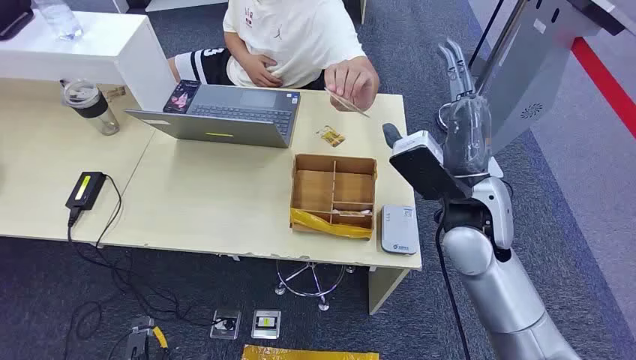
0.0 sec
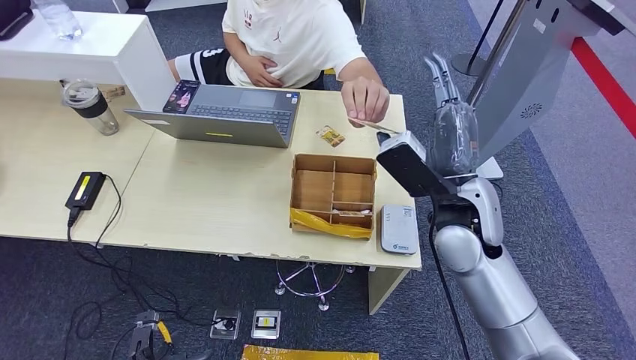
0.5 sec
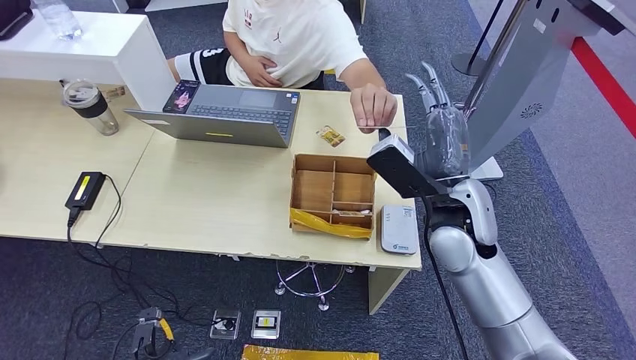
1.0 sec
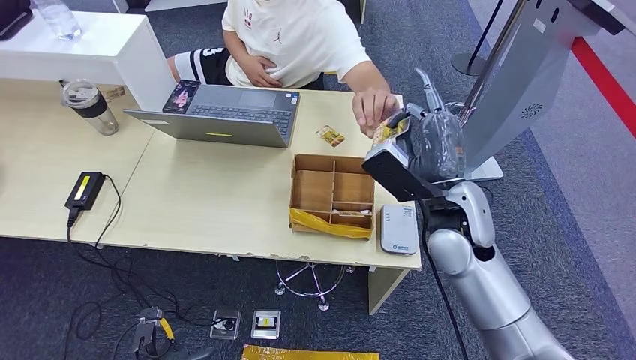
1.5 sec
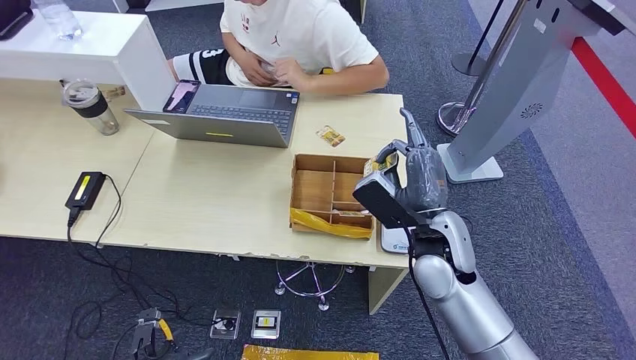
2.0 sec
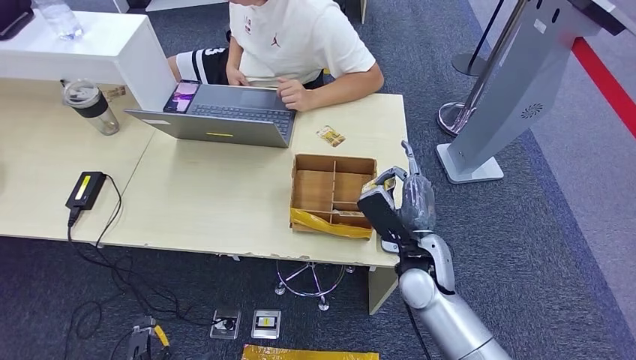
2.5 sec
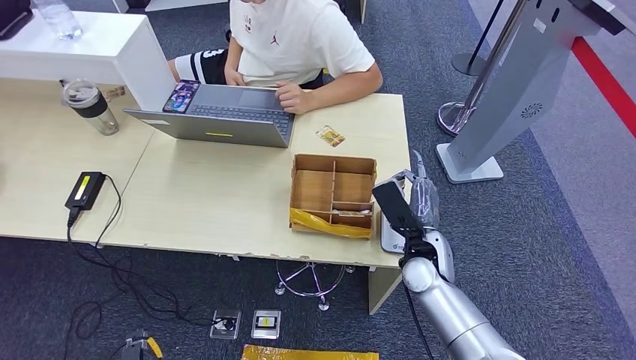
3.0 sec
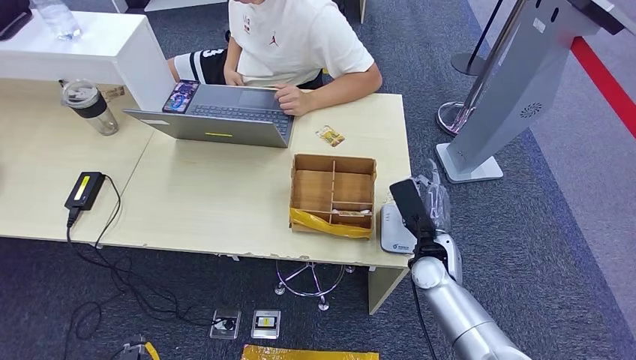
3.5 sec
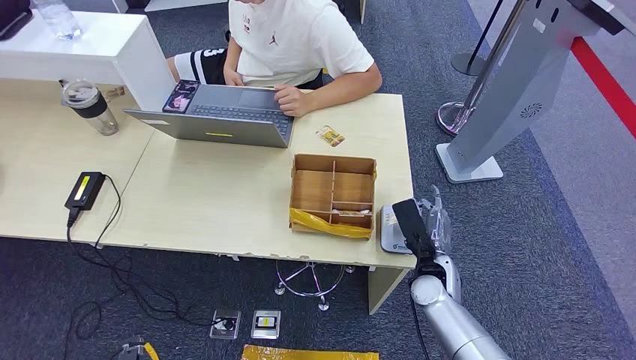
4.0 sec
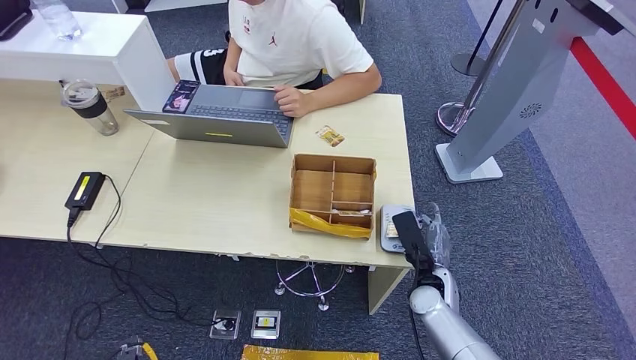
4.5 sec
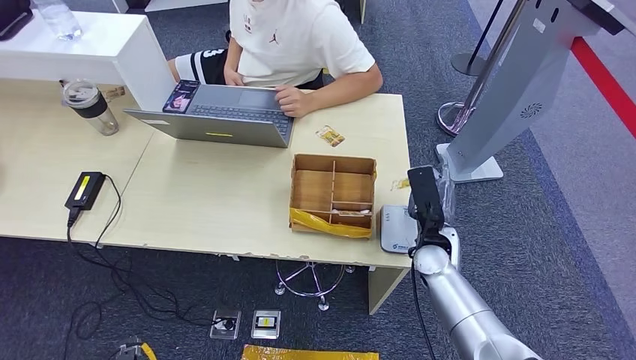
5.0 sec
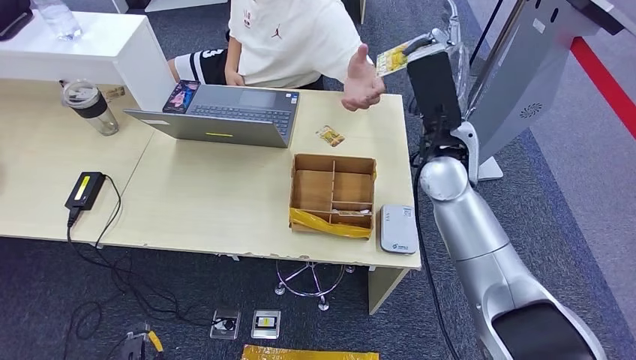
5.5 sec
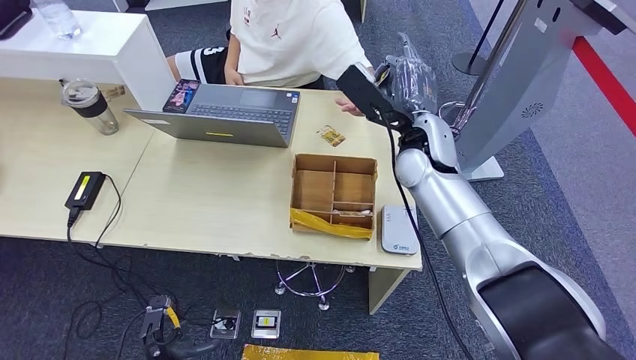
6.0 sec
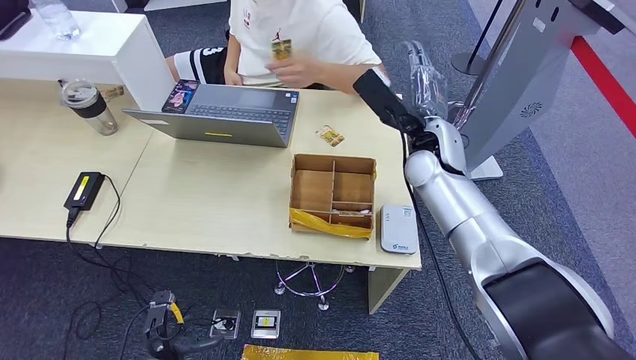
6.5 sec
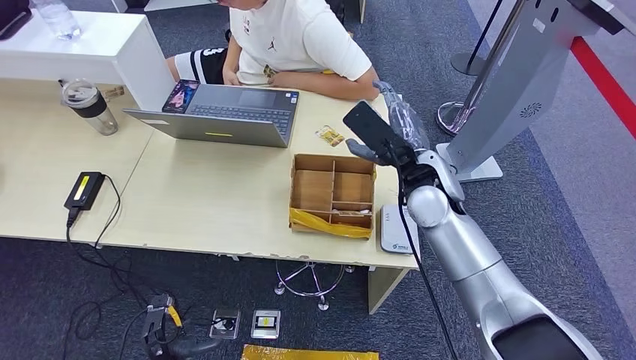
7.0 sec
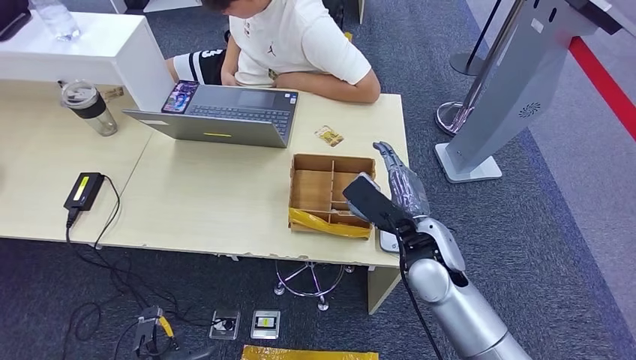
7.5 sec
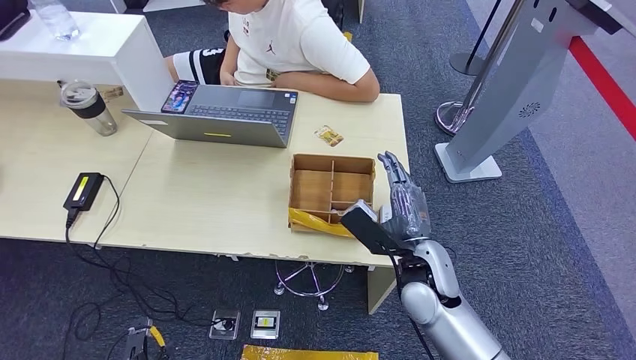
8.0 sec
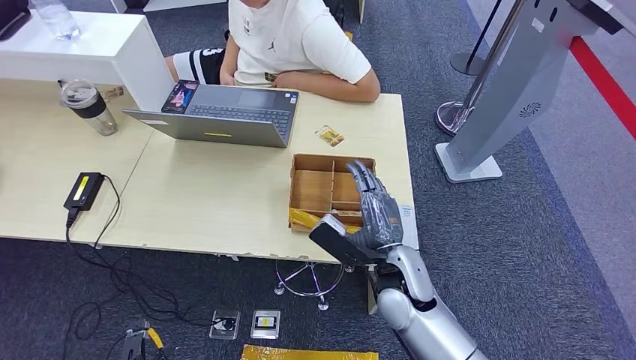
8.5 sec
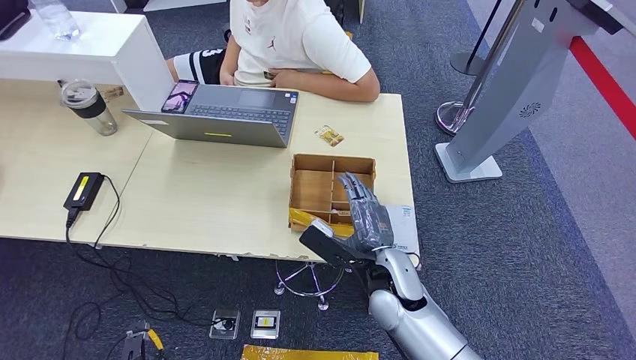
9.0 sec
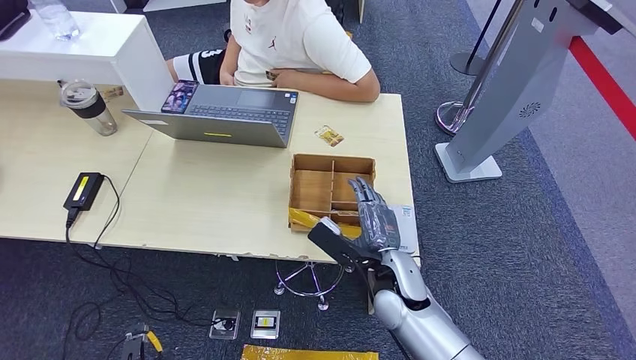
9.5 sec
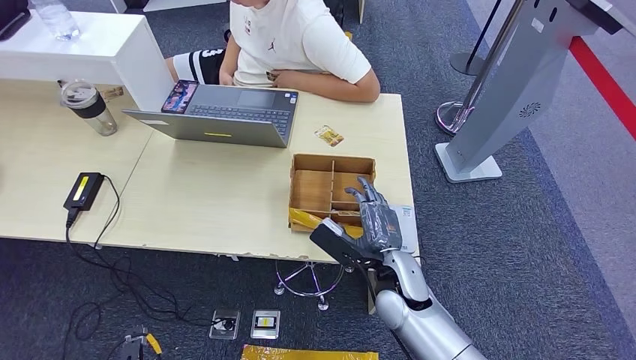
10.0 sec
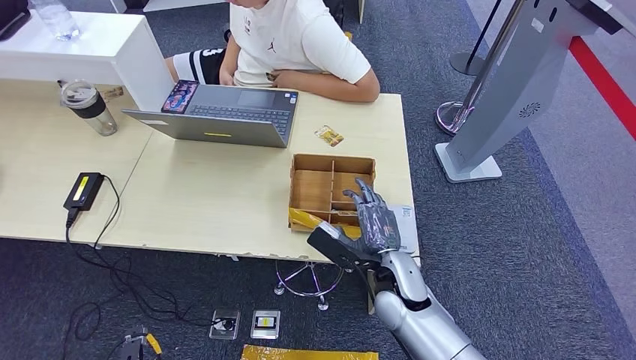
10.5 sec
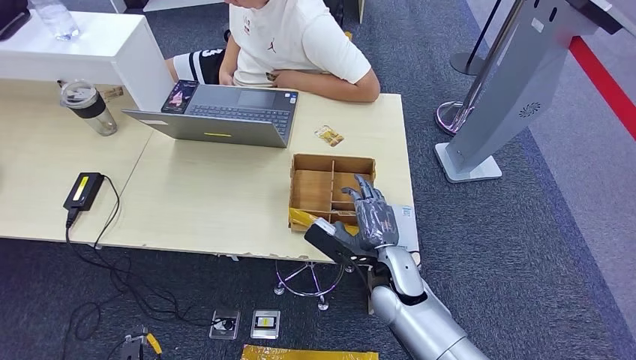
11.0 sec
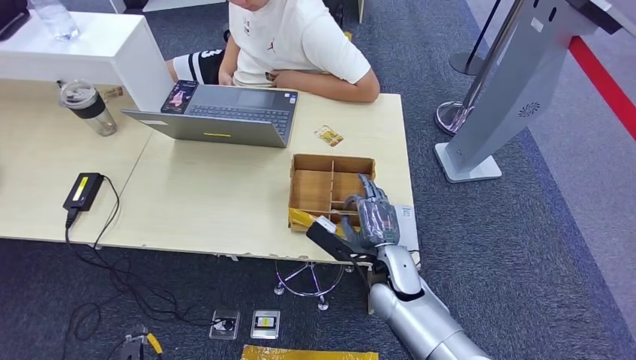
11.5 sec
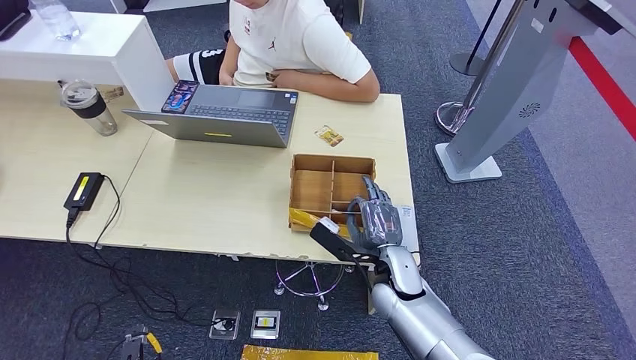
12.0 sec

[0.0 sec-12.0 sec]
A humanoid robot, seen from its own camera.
Step, 0.0 sec to 2.5 sec: Take the ID card from the person's hand.
Step, 3.5 sec to 5.0 sec: Place the ID card on the card reader.
Step, 5.5 sec to 8.5 sec: Hand the ID card to the person.
2.0 sec to 4.0 sec: The right hand travels downward by about 15 cm.
4.0 sec to 6.0 sec: The left hand travels forward by some 5 cm, while the right hand moves upward and forward, roughly 25 cm.
8.0 sec to 10.0 sec: The right hand changes place by roughly 5 cm.
10.0 sec to 12.0 sec: The hands move only a little.

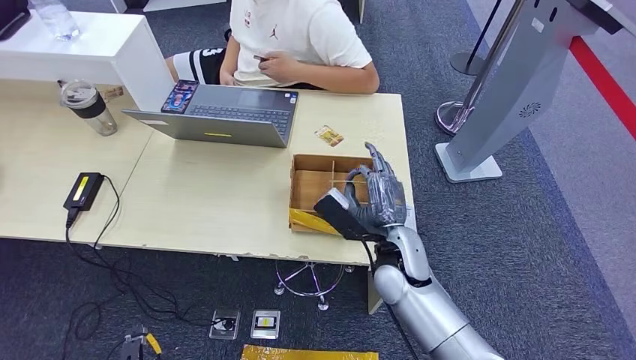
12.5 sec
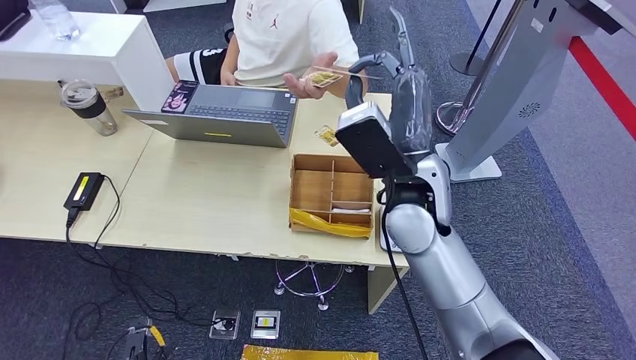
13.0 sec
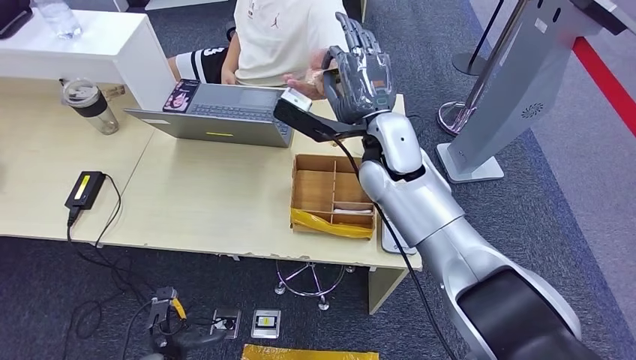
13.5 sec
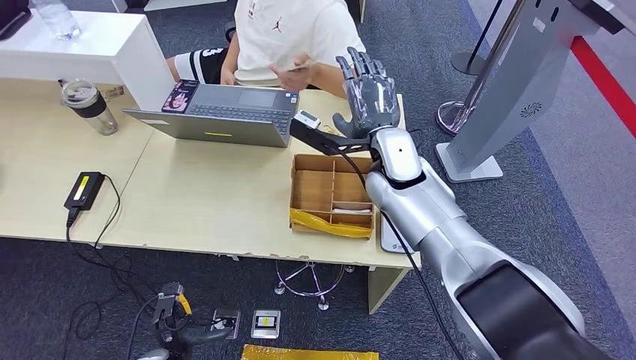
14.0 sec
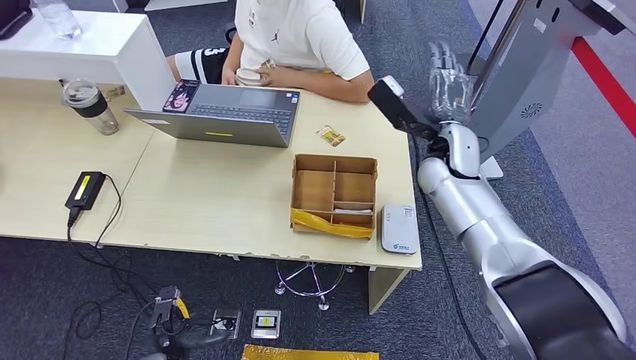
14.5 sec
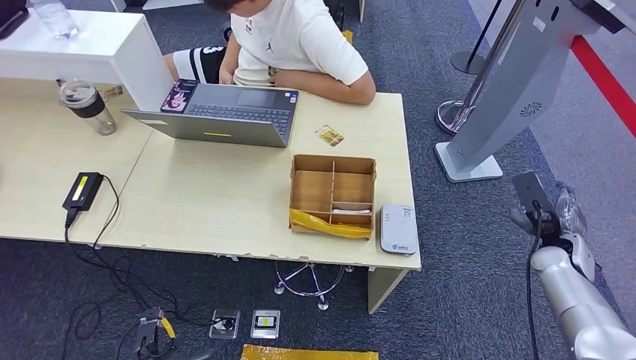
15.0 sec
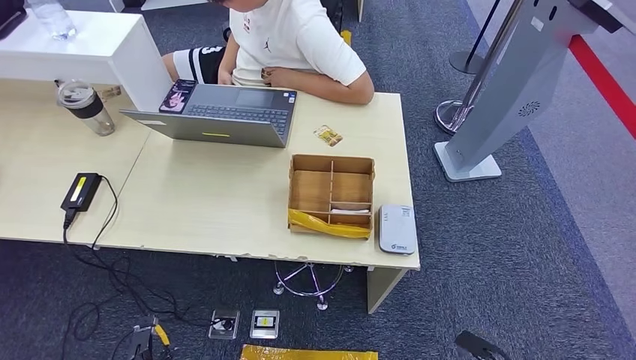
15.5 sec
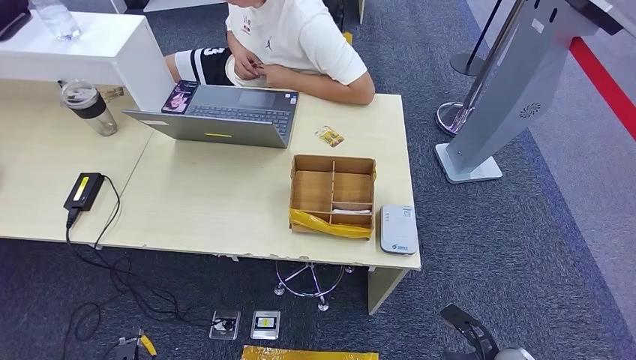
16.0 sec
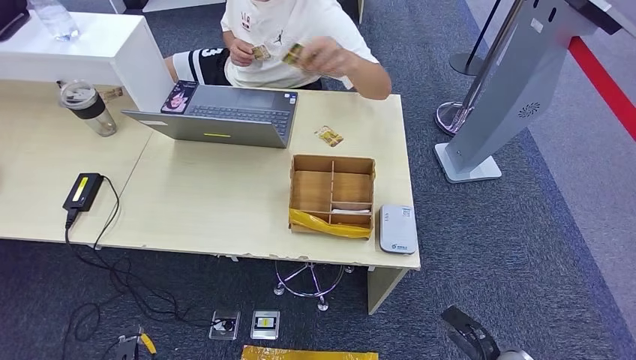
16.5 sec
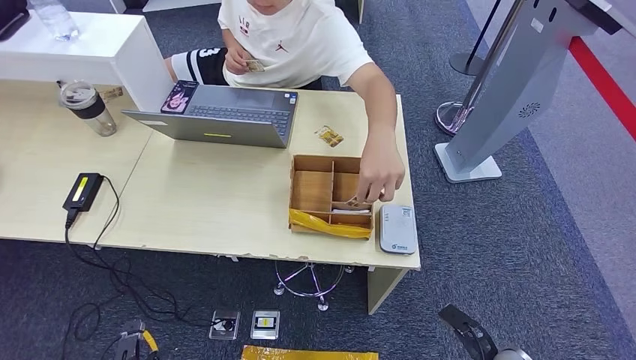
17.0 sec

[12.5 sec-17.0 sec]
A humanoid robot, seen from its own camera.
Step, 13.5 sec to 17.0 sec: Hand the room key to the person.

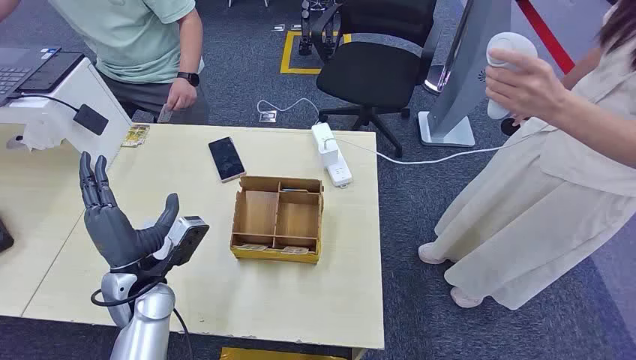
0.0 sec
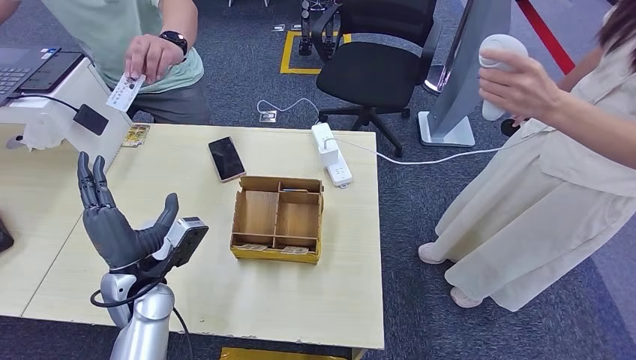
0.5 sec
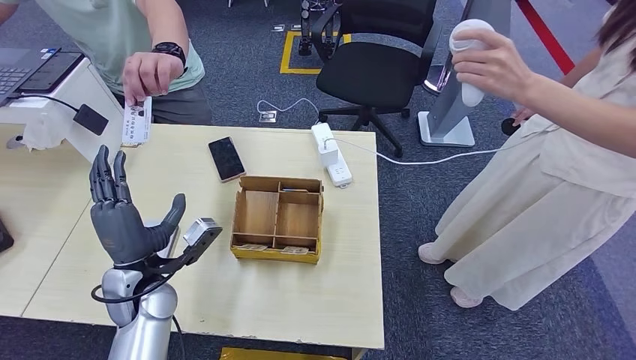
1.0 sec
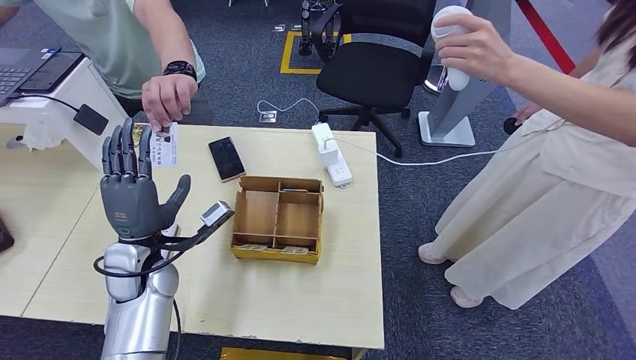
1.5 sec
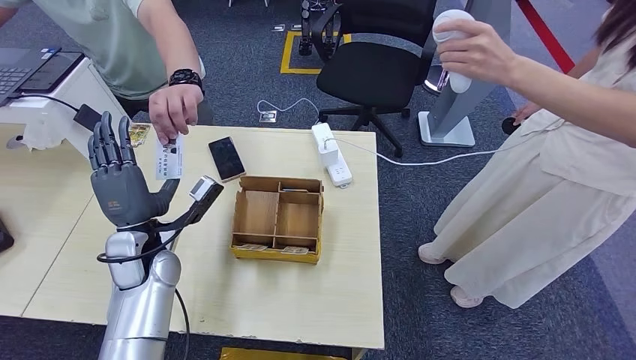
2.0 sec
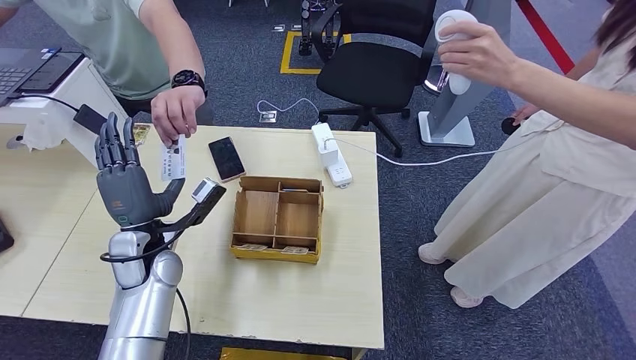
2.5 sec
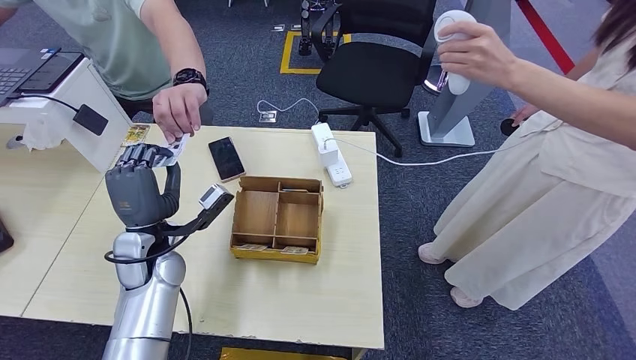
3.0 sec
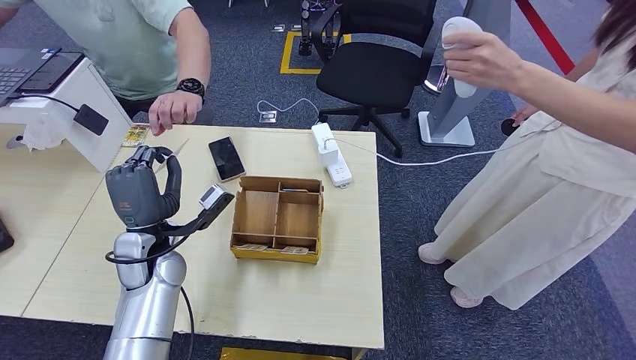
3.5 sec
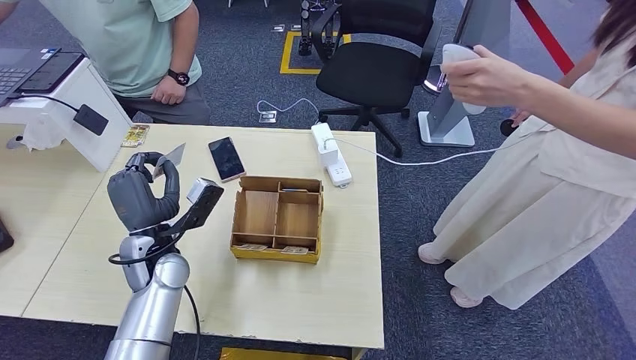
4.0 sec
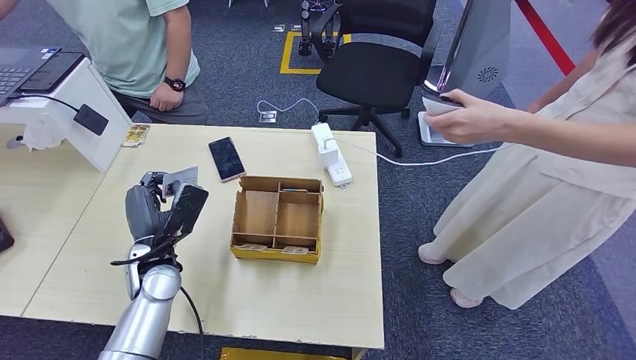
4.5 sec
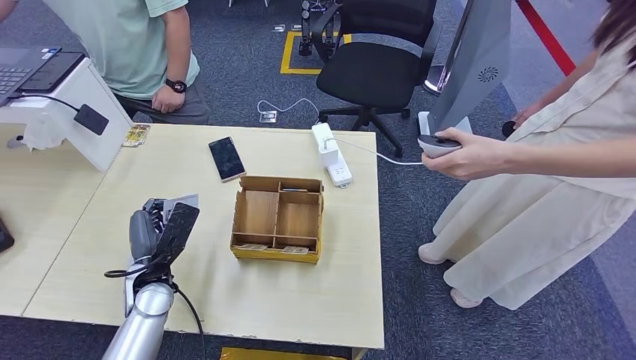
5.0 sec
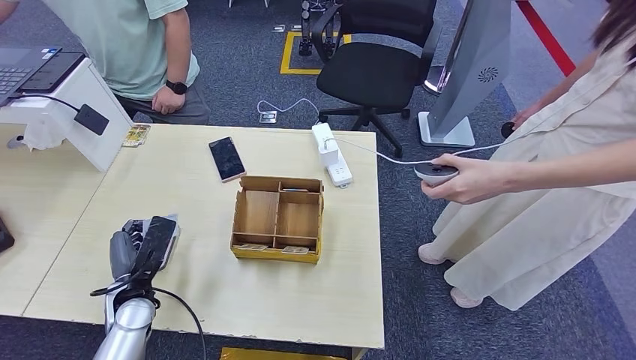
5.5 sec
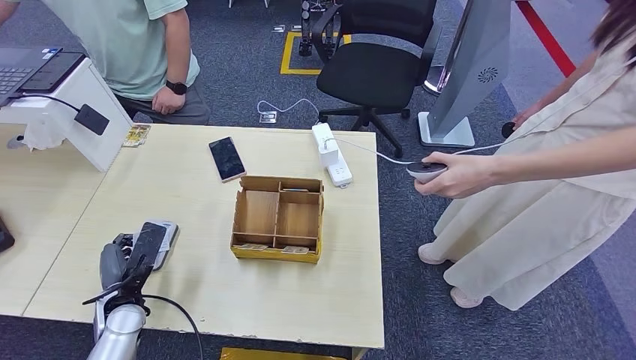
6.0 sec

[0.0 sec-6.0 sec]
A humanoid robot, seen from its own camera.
Step, 0.0 sec to 3.0 sec: Take the ID card from the person's hand.
2.0 sec to 4.0 sec: The hands stay close to where they were, moving slightly.
4.0 sec to 6.0 sec: The left hand shifts roughly 15 cm downward, to the left and backward.
